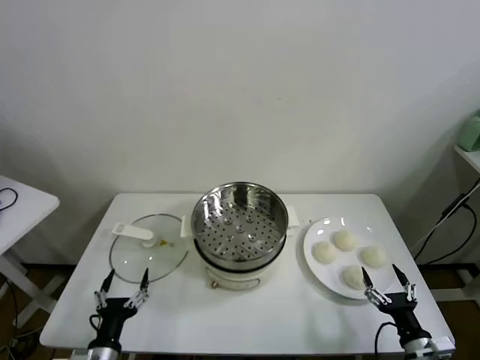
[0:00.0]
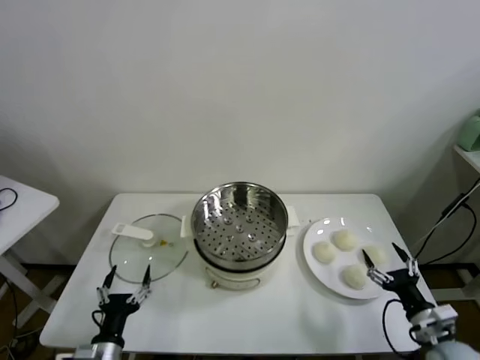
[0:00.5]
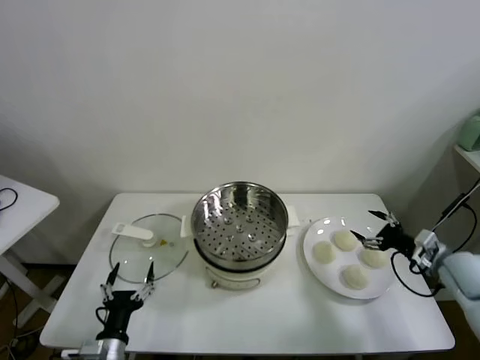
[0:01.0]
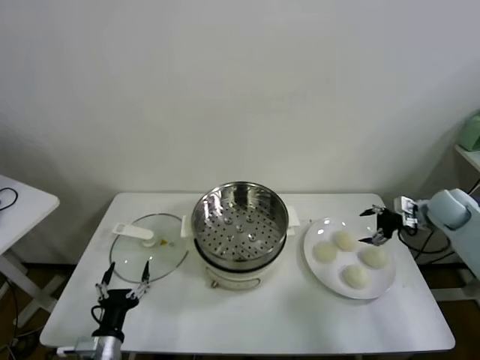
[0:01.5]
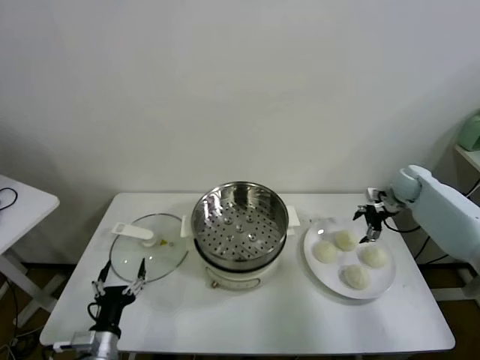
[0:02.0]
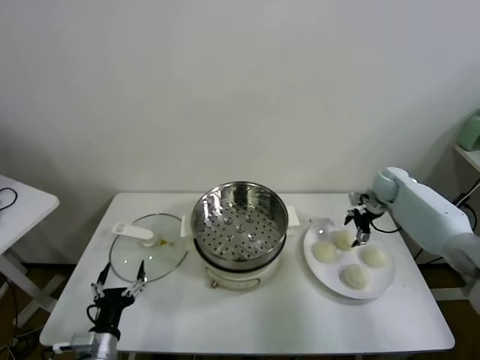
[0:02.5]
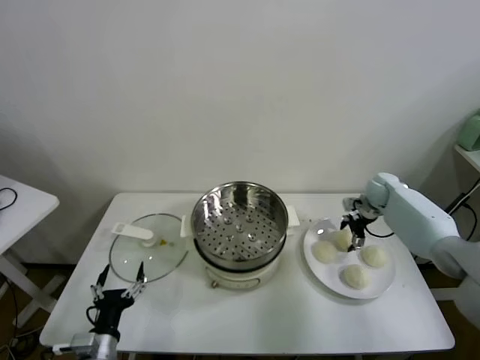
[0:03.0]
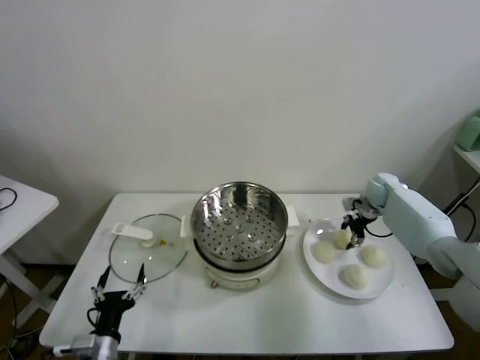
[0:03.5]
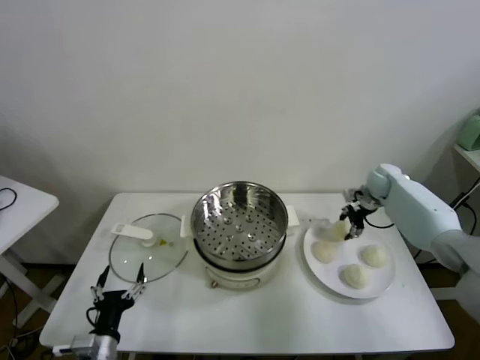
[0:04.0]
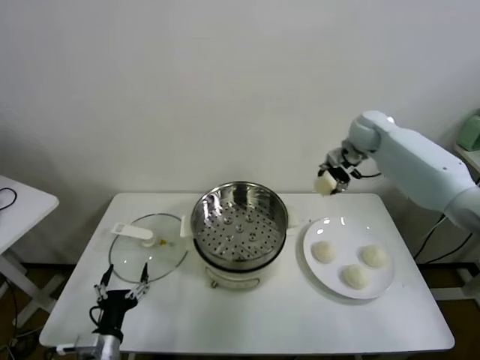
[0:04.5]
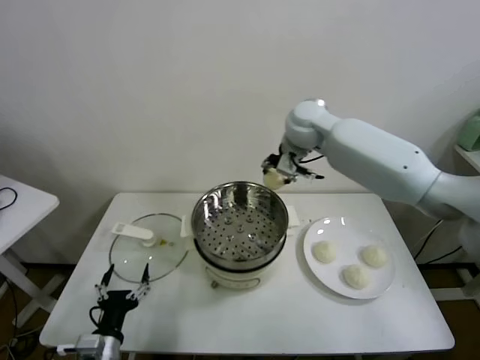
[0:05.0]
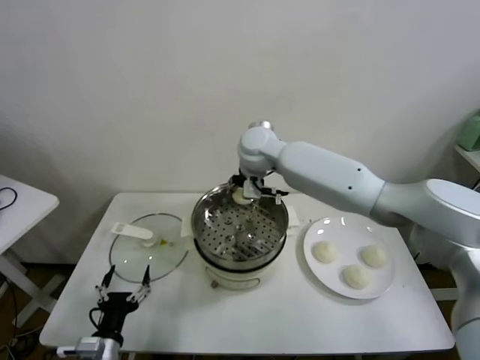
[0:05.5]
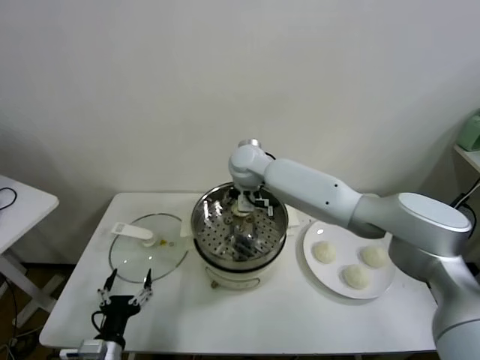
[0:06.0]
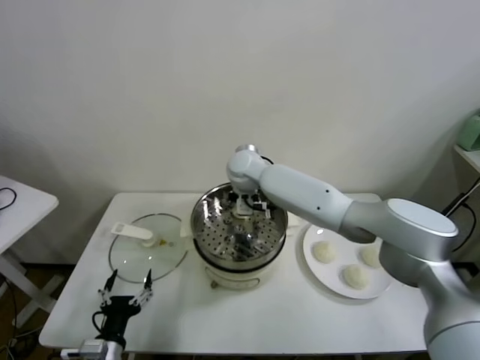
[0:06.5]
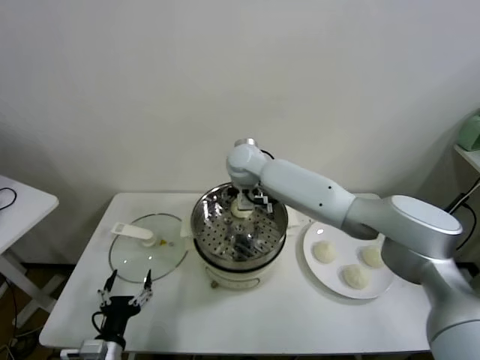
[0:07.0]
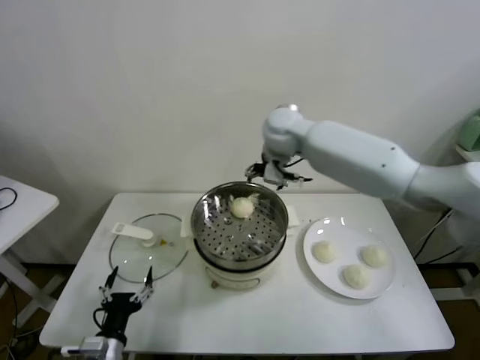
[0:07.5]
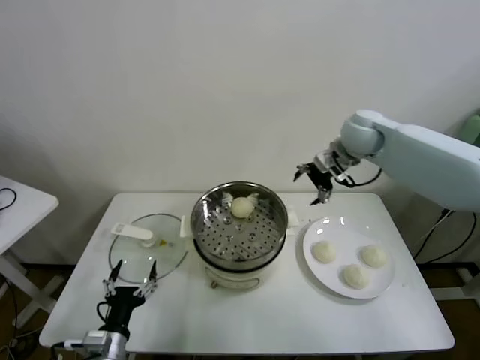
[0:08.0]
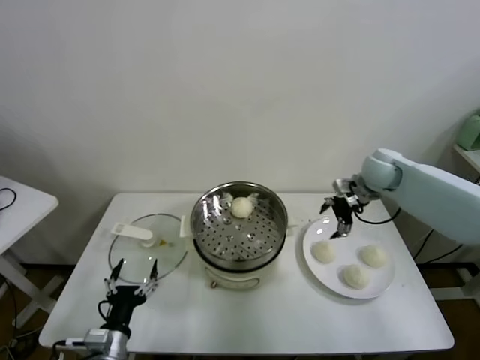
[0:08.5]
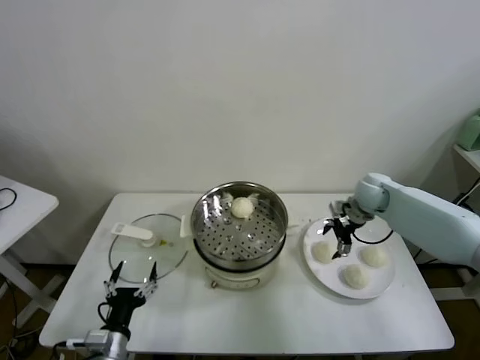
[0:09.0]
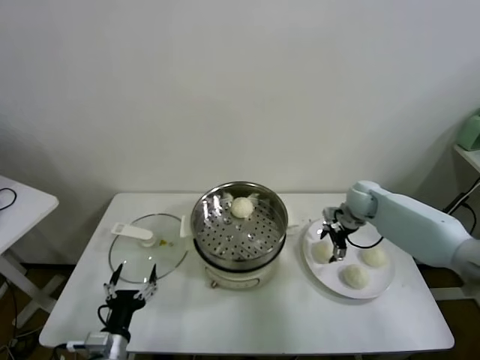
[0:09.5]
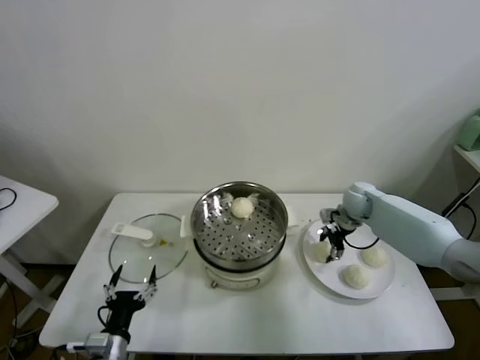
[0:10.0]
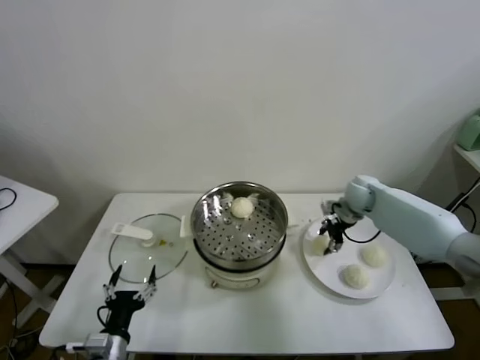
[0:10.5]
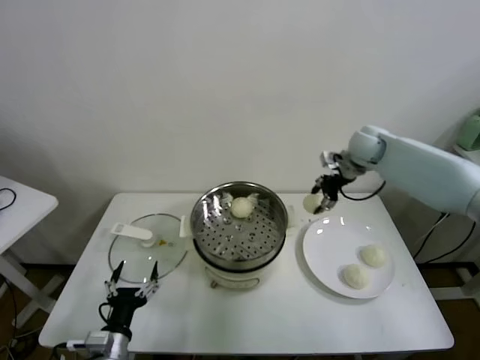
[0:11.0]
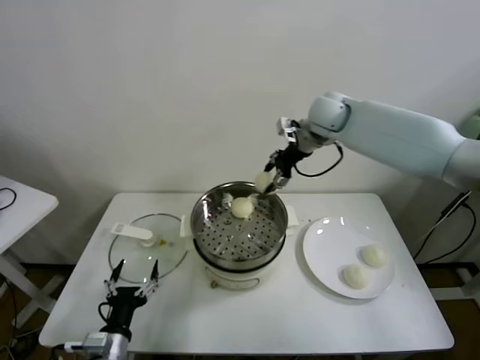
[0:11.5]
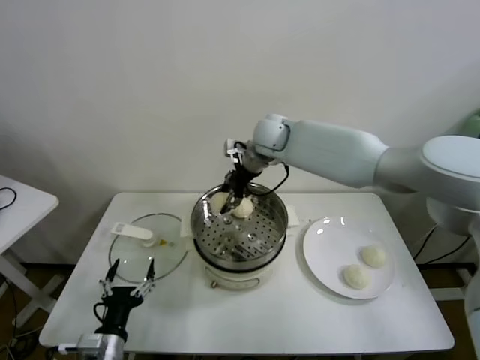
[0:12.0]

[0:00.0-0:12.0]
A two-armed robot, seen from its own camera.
Task of the whole recording: take steamed baozi put them in steamer.
Step, 0.0 to 3.5 s: Grasp the baozi in the plate with right gripper.
Step, 4.0 to 6.5 s: Place the baozi on the steamer with right gripper.
Step, 7.0 to 10.0 s: Grasp the baozi in the plate with right gripper.
2.0 to 4.0 s: The right gripper changes place by roughly 5 cm, and closes its fingers.
4.0 to 6.0 s: The right gripper moves to the left, approximately 40 cm.
6.0 to 8.0 s: The right gripper moves to the right, about 25 cm, and opens up.
8.0 to 10.0 s: The right gripper moves downward, some 20 cm, and closes.
10.0 to 12.0 s: The right gripper moves to the left and upward, some 30 cm.

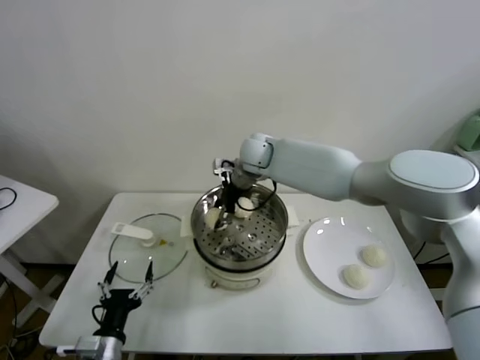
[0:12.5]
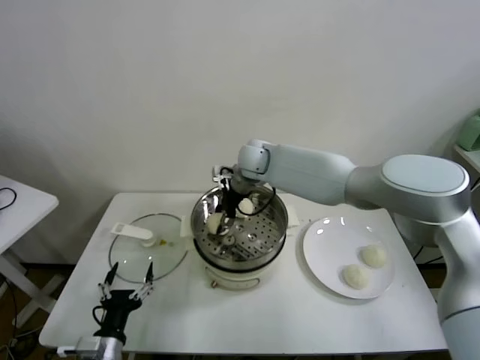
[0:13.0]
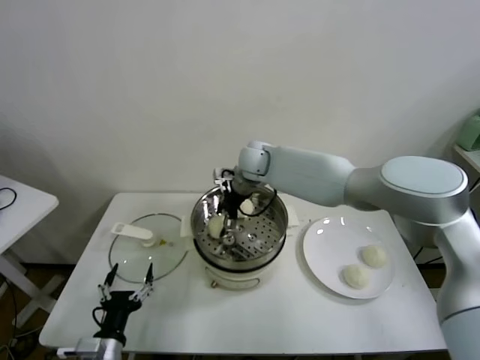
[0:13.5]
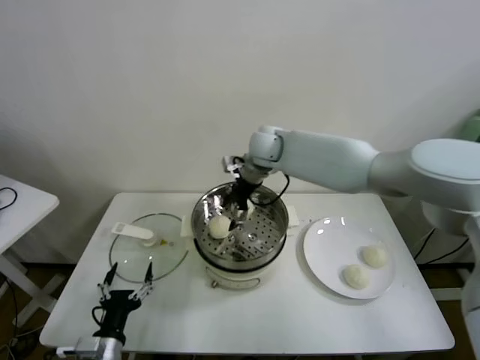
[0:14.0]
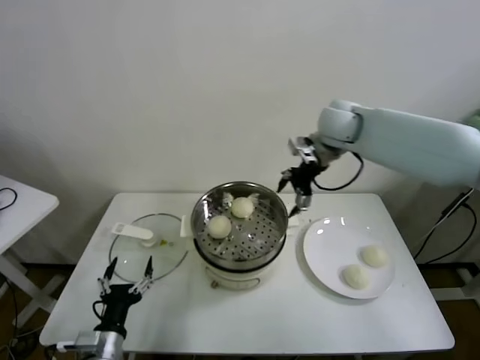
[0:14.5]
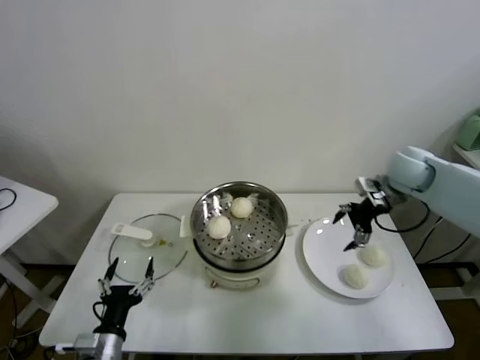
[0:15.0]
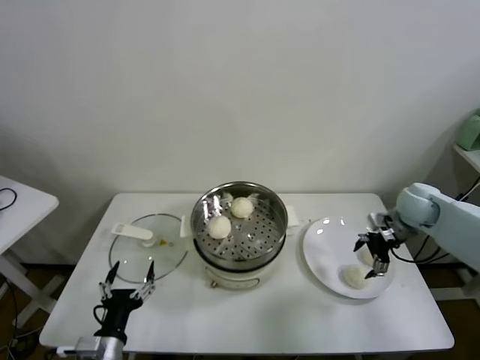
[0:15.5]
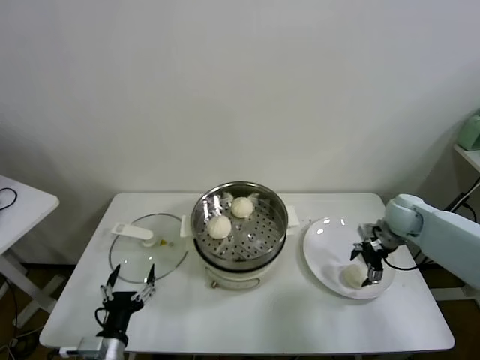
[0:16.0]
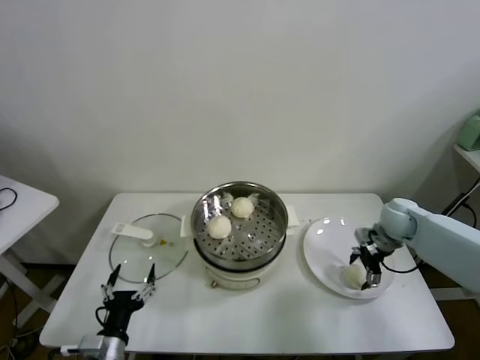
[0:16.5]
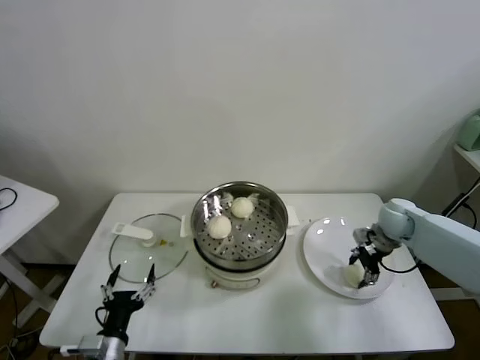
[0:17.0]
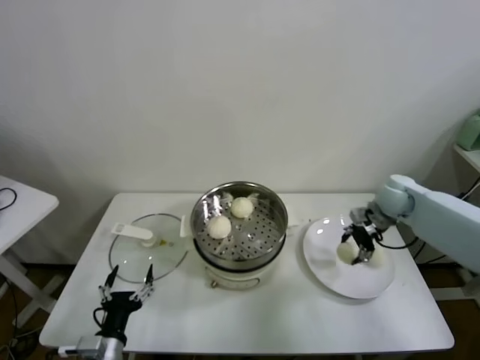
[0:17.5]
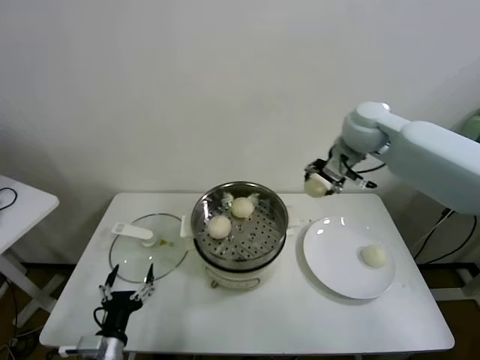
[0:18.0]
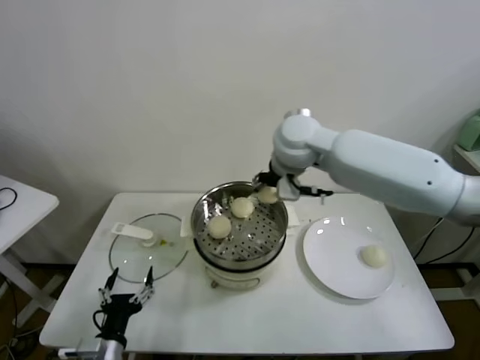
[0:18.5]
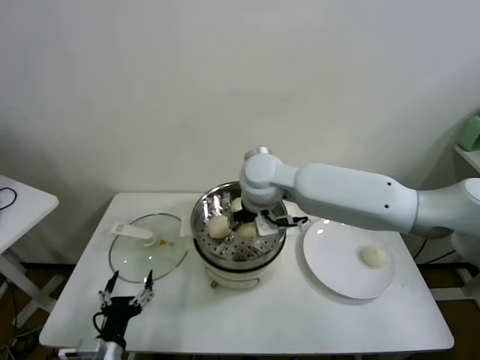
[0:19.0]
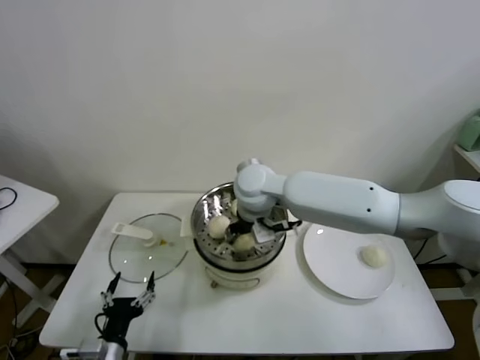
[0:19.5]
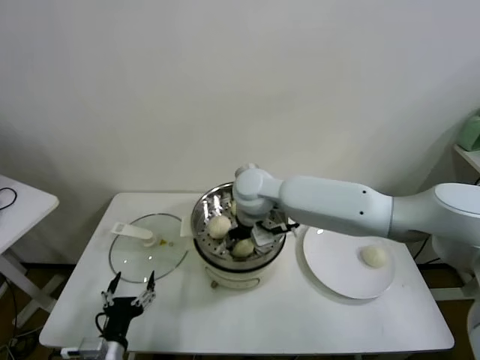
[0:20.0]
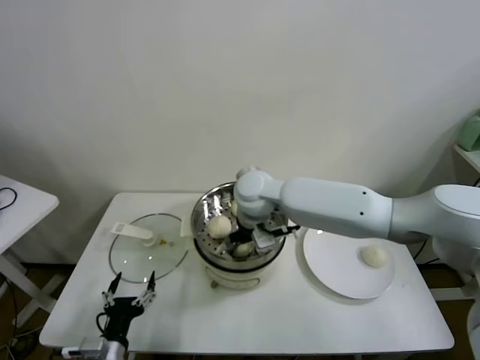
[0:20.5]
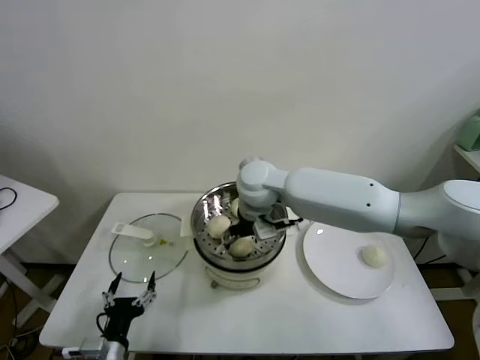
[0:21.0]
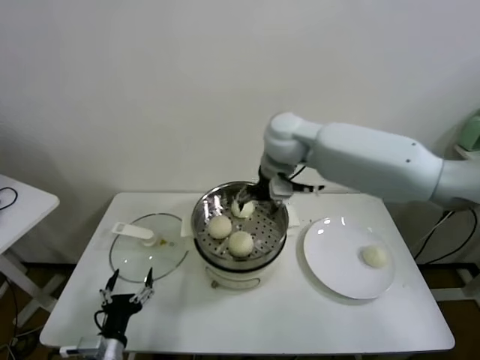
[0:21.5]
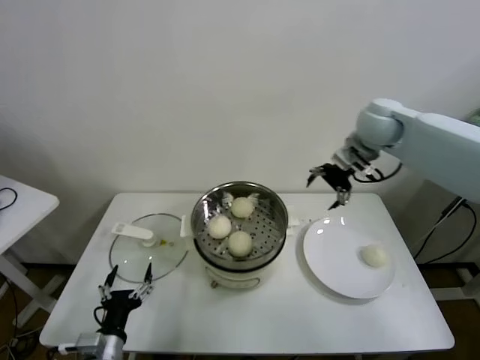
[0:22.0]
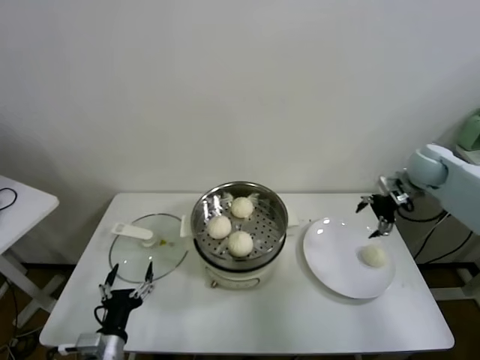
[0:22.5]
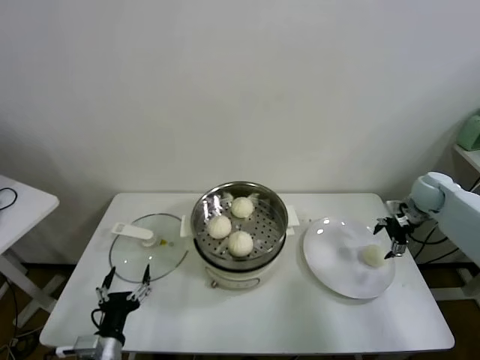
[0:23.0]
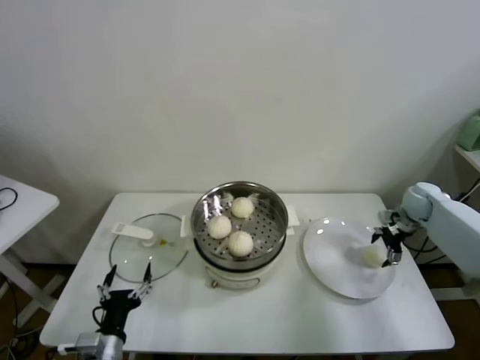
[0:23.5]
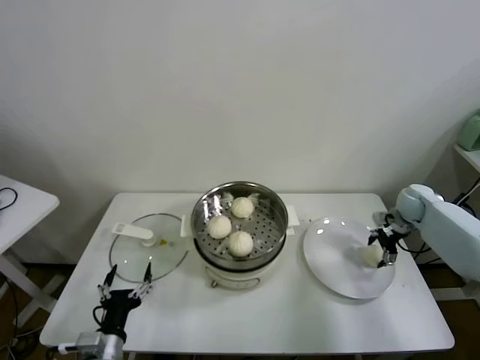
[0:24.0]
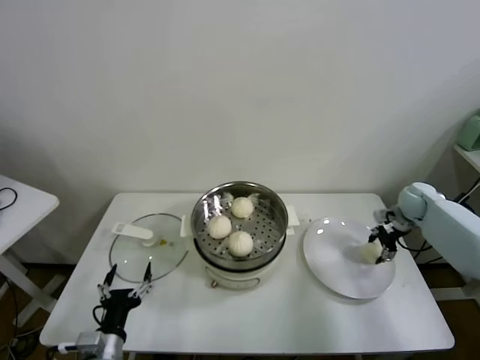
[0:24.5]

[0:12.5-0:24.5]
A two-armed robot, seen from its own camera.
Task of the whole recording: take steamed baozi put them in steamer.
Step, 14.0 to 16.5 s: Grasp the baozi in the plate with right gripper.
Step, 17.5 to 20.5 s: Place the baozi on the steamer with right gripper.
Step, 21.0 to 24.0 s: Grasp the baozi in the plate with right gripper.
12.5 to 14.5 s: The right gripper heads to the right and upward, covering about 20 cm, and opens its fingers.
14.5 to 16.5 s: The right gripper moves downward and to the right, about 30 cm.
16.5 to 18.5 s: The right gripper travels to the left and upward by about 40 cm, and closes.
18.5 to 20.5 s: The right gripper travels downward and to the left by about 15 cm.
20.5 to 22.5 s: The right gripper is displaced to the right by roughly 40 cm, and opens.
22.5 to 24.5 s: The right gripper shifts roughly 15 cm downward, and closes.

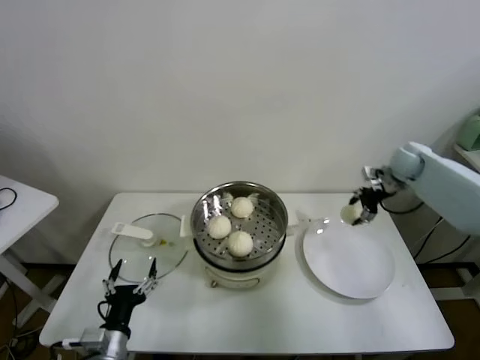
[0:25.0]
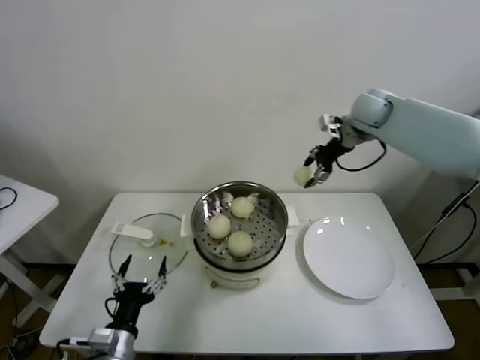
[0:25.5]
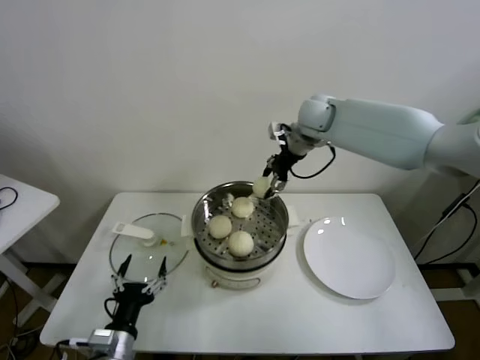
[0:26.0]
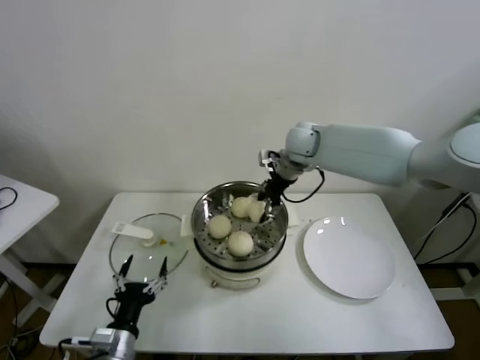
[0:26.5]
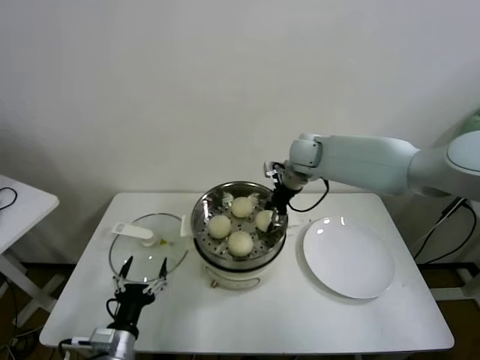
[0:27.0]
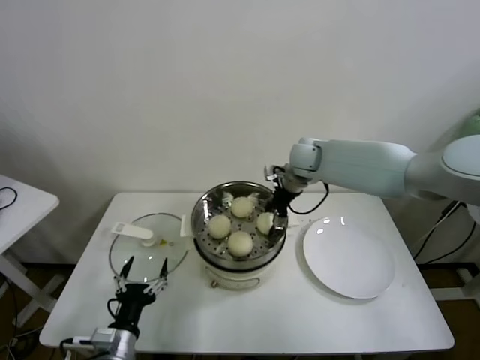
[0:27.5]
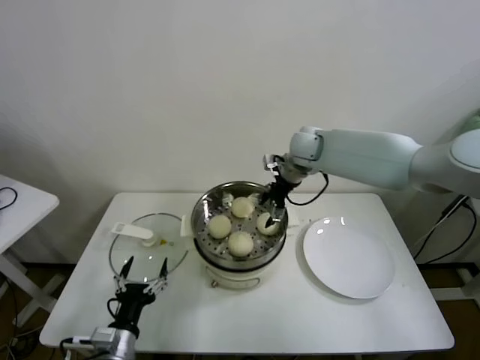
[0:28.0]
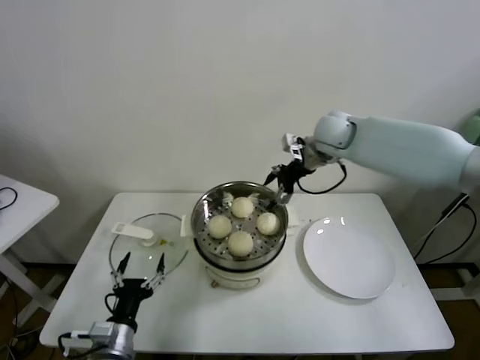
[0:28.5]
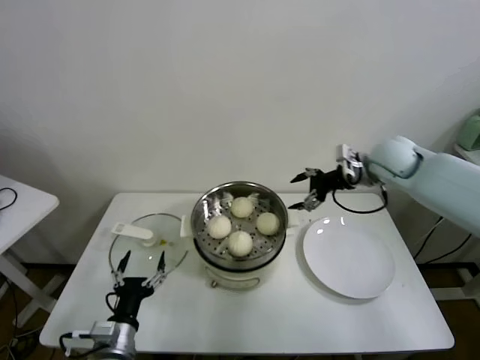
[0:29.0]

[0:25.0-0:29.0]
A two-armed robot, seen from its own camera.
Task of the whole recording: take steamed baozi put them in steamer.
Step, 25.0 to 27.5 s: Place the baozi on the steamer with right gripper.
25.0 to 27.0 s: The right gripper shifts about 25 cm to the left.
27.0 to 29.0 s: The right gripper goes approximately 15 cm to the right and backward, and opens up.
